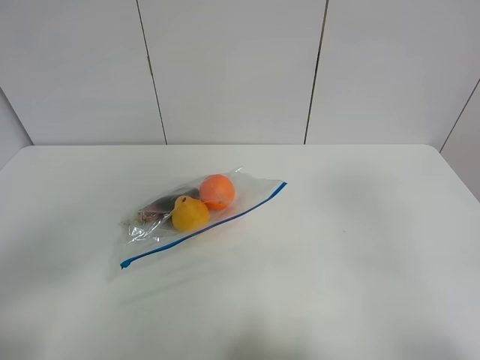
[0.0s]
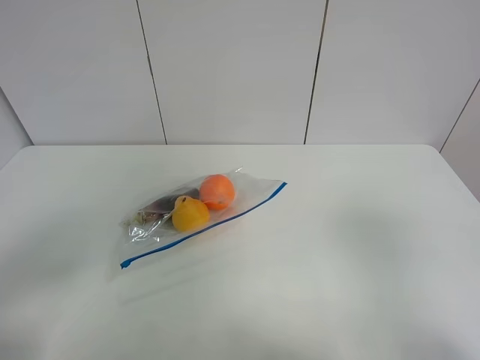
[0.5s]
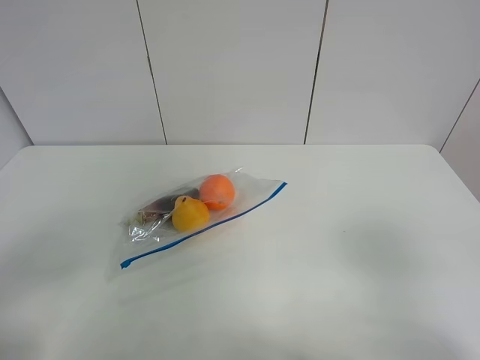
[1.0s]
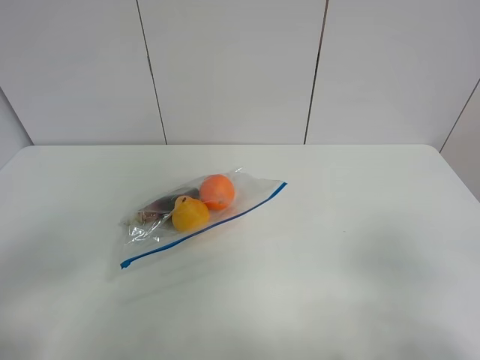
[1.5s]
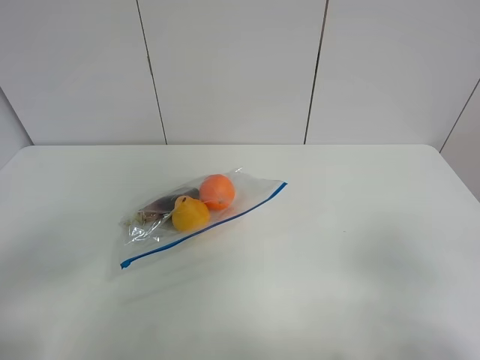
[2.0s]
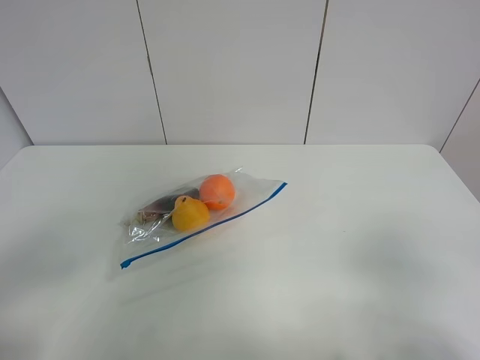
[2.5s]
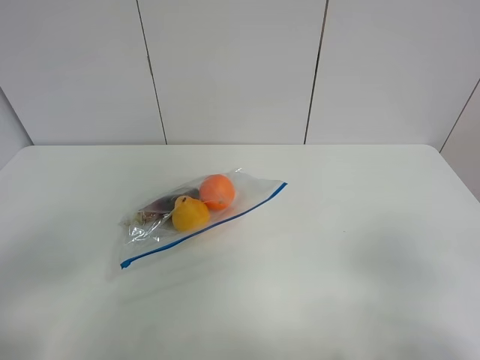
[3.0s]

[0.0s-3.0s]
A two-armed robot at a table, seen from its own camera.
0.0s to 1.5s: The right gripper goes some 15 cm downward.
1.5s to 3.0s: Neither gripper changes place.

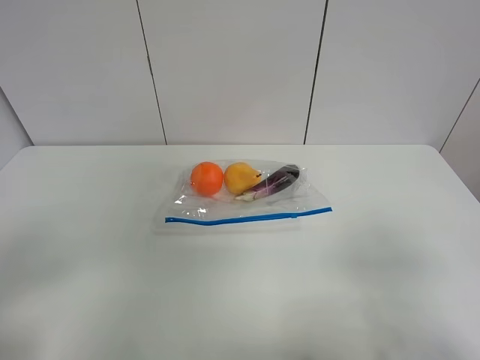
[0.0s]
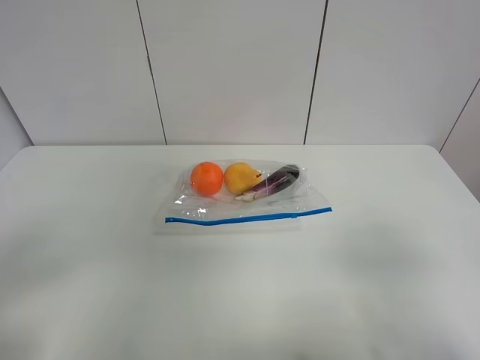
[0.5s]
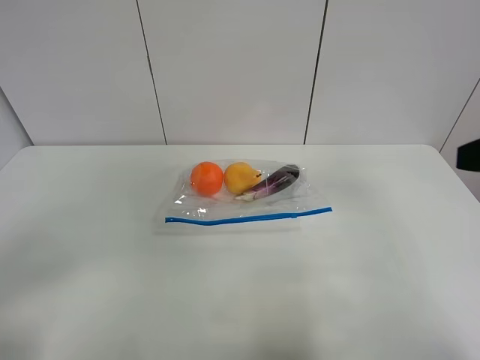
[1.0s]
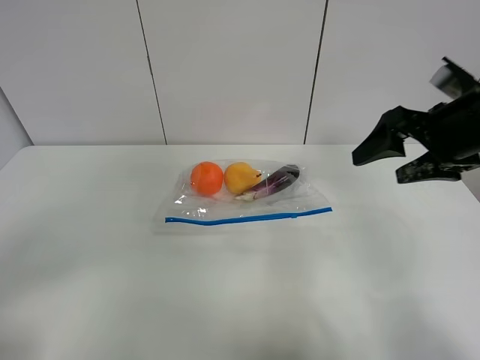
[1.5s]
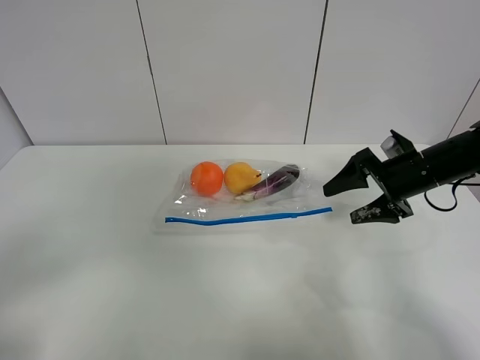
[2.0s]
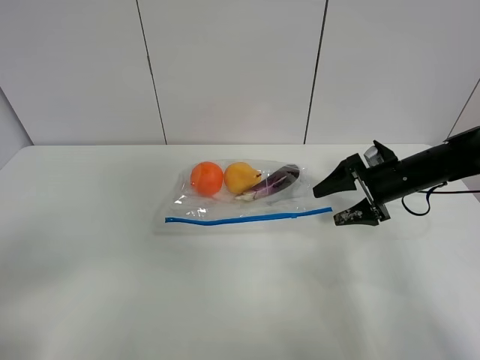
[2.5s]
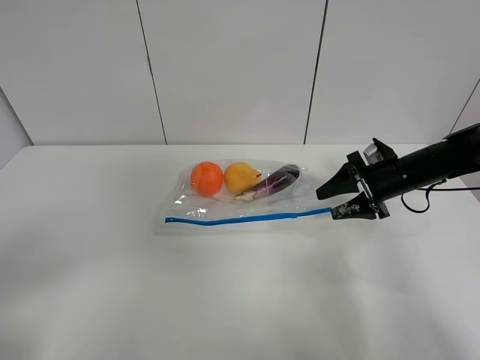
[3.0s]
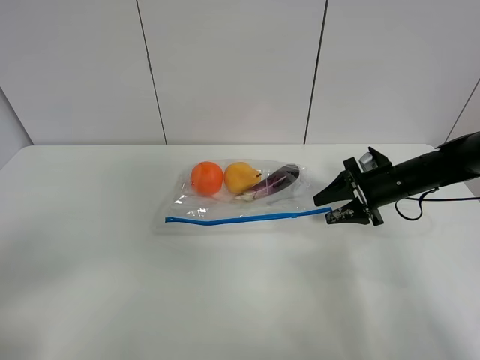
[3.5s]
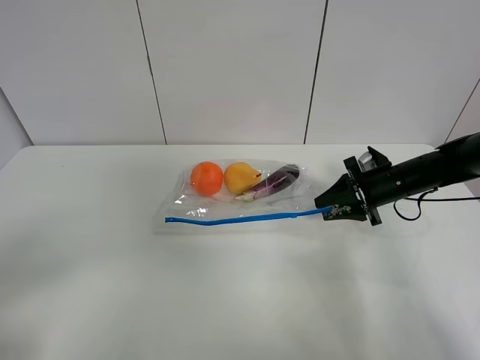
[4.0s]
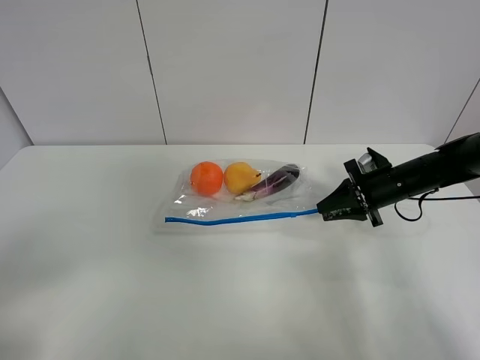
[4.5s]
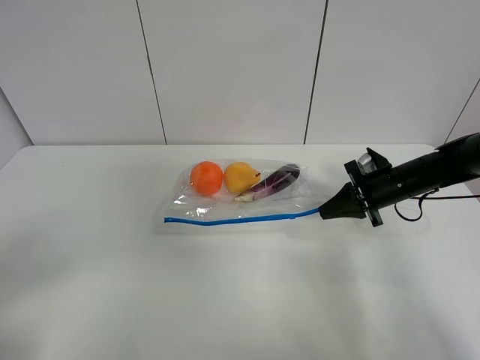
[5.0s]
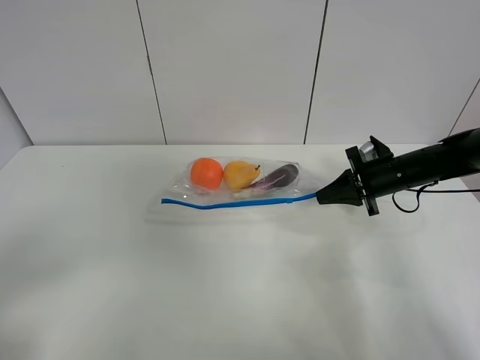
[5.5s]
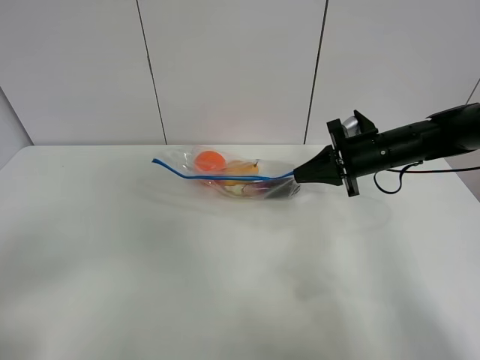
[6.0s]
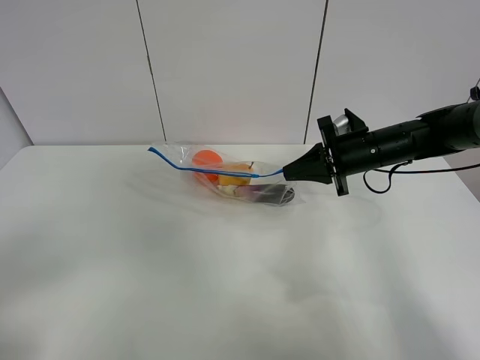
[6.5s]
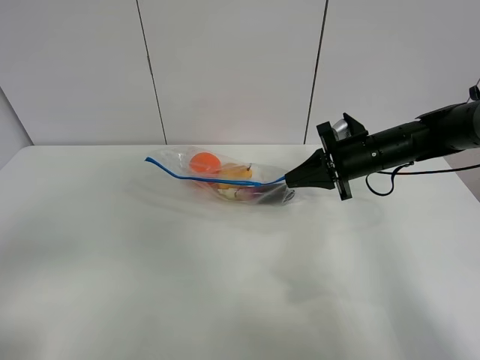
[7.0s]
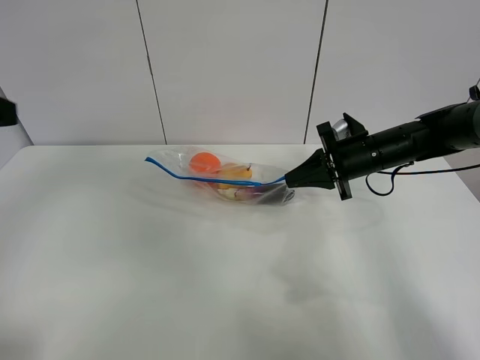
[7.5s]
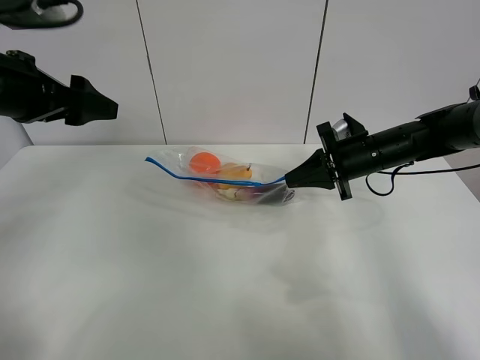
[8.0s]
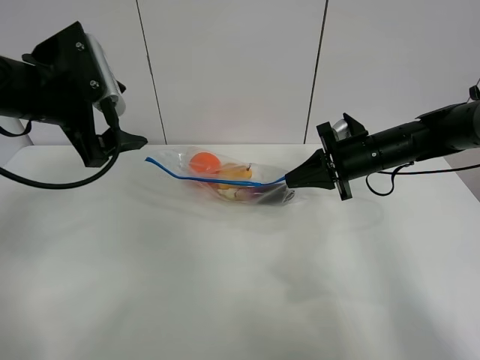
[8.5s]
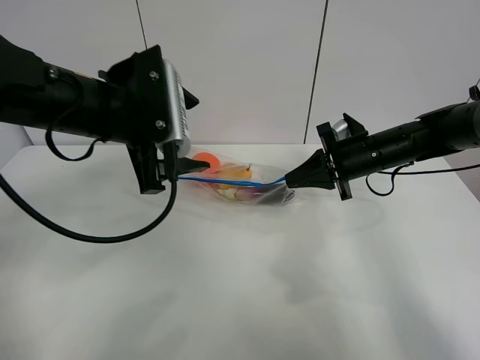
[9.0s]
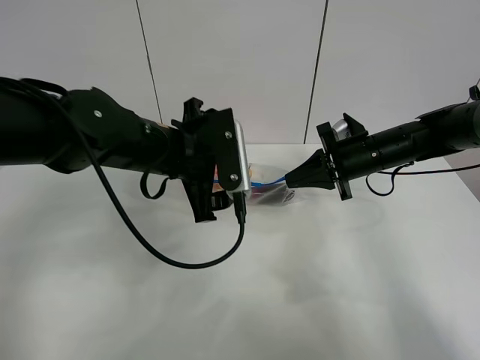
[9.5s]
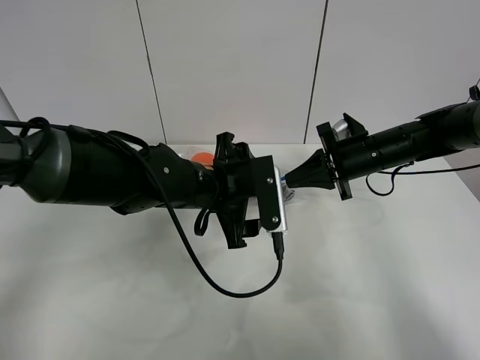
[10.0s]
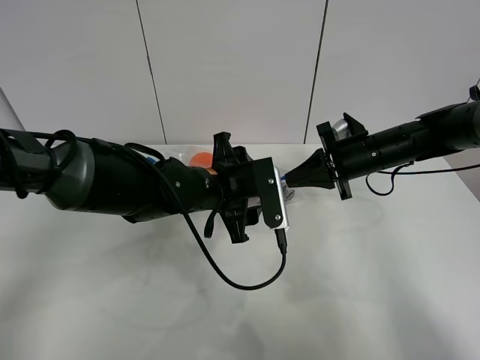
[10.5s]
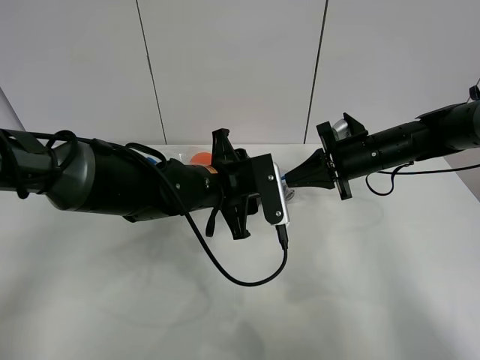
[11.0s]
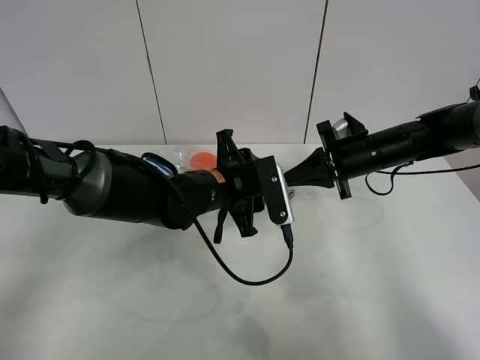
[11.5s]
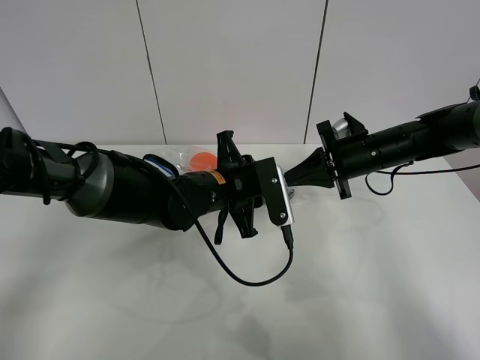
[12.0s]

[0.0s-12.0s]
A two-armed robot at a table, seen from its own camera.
Step, 0.0s to 4.5s: Grasp the fruit bag with right gripper.
Step, 5.0s to 6.5s: Lift the fruit bag with your right gripper.
0.0s to 2.0s: The right gripper moves forward, some 35 cm.
2.0s to 4.0s: The right gripper is displaced downward by roughly 5 cm, and closes its fingers.
4.0s to 6.0s: The right gripper goes some 10 cm upward and to the left, and closes up.
6.0s to 8.0s: The left gripper moves forward, about 30 cm.
8.0s to 10.0s: The left gripper shifts roughly 25 cm to the right and downward.
10.0s to 12.0s: The left gripper closes its fingers.

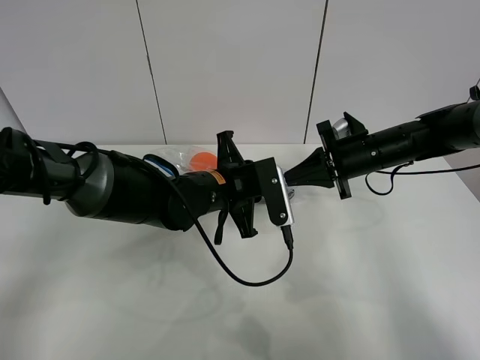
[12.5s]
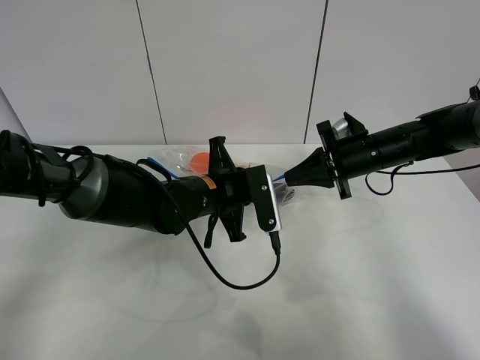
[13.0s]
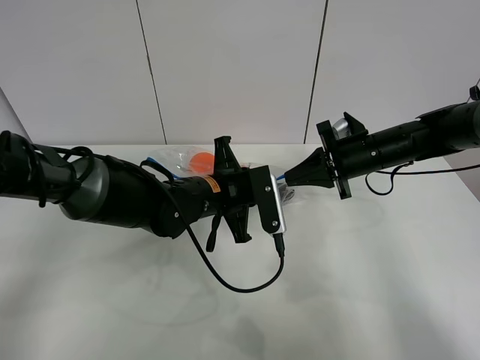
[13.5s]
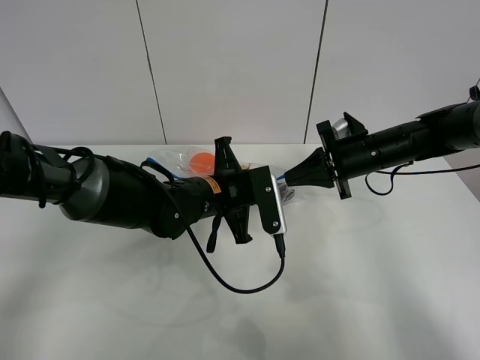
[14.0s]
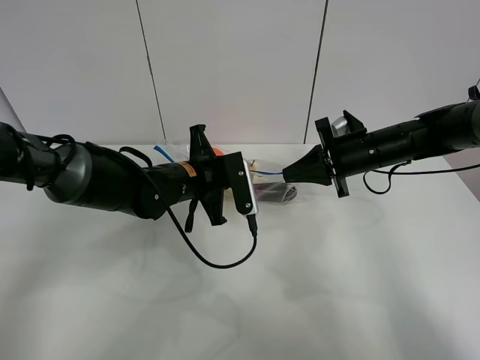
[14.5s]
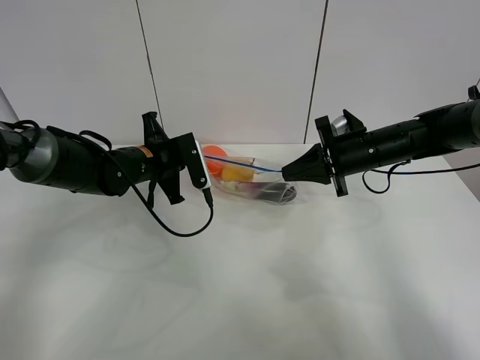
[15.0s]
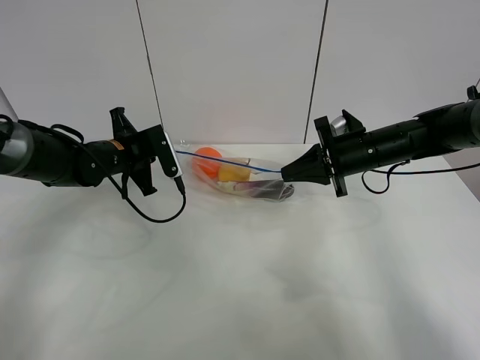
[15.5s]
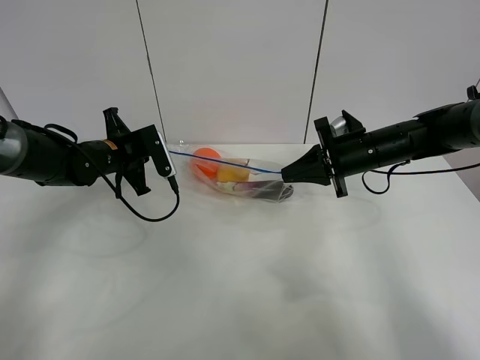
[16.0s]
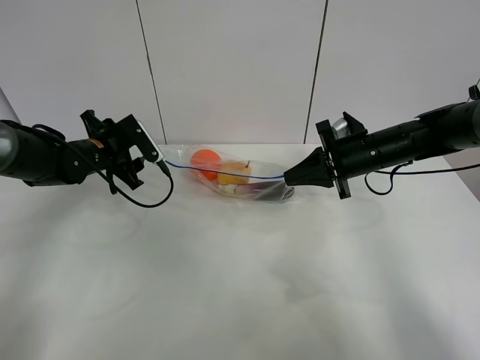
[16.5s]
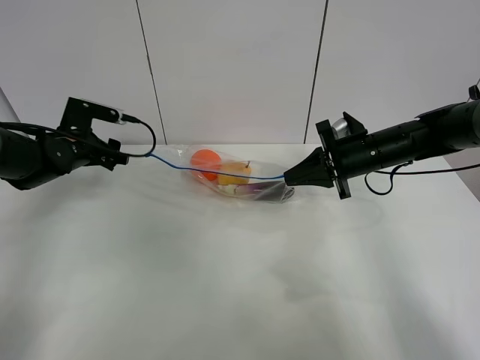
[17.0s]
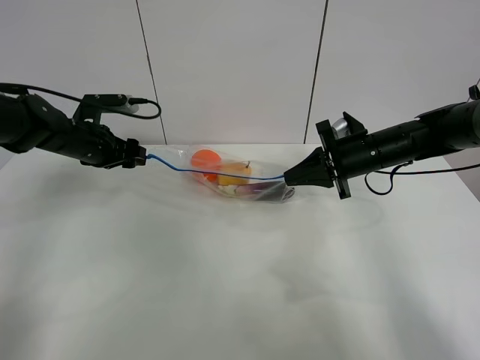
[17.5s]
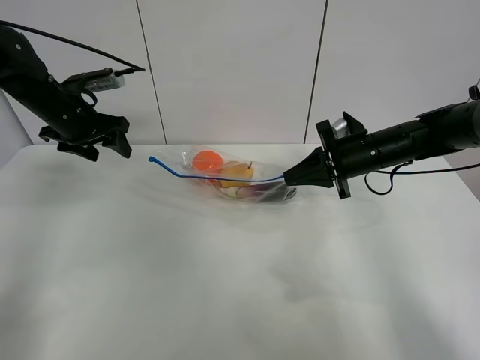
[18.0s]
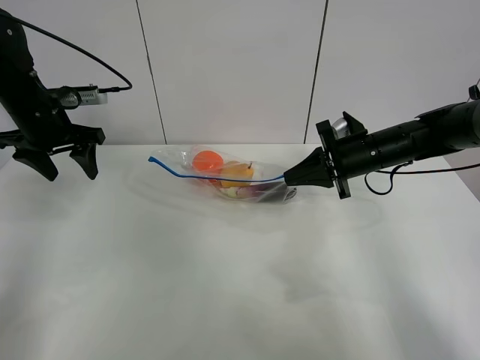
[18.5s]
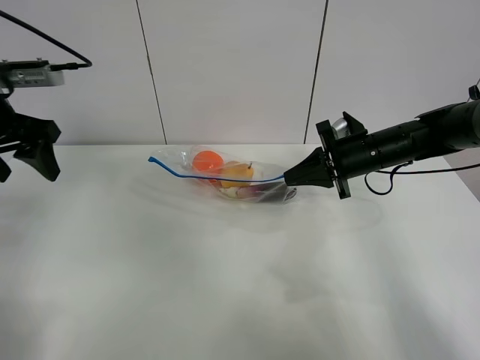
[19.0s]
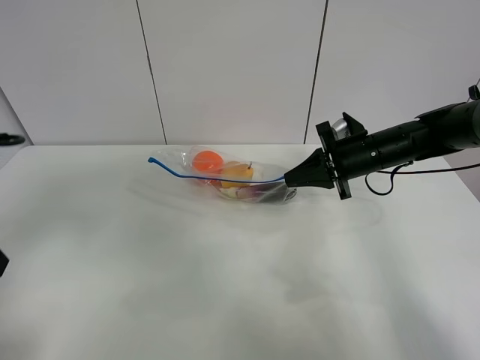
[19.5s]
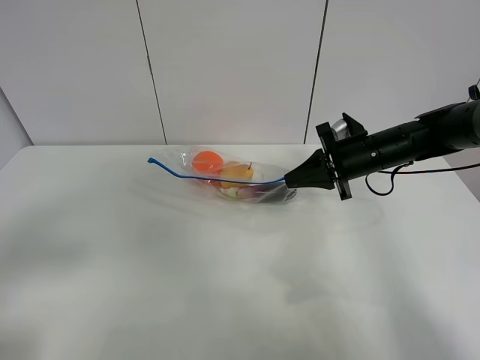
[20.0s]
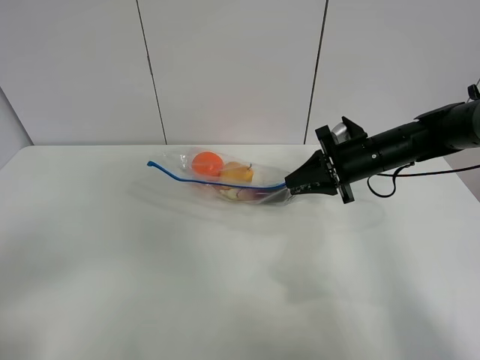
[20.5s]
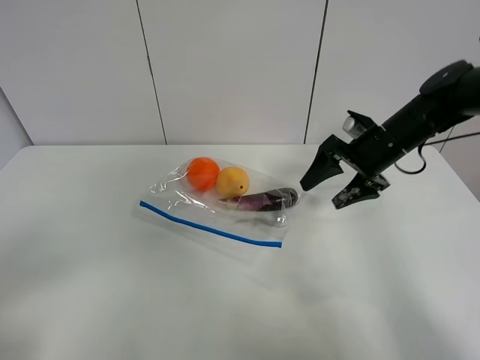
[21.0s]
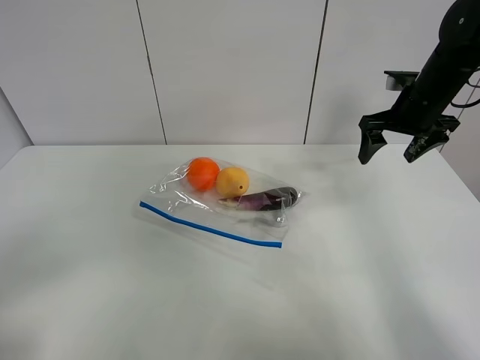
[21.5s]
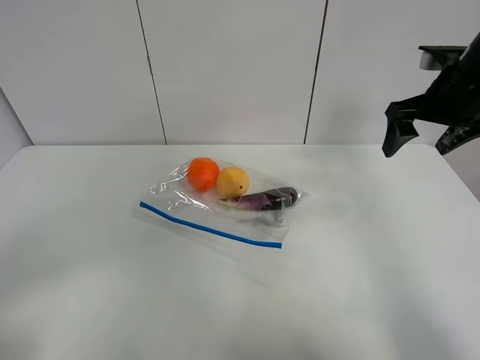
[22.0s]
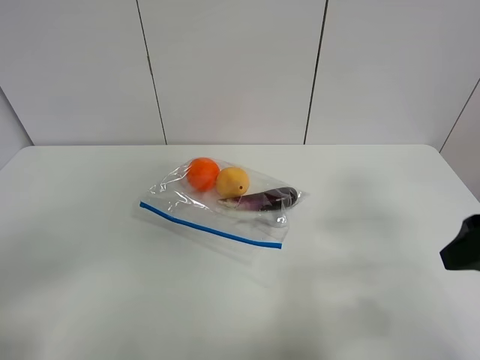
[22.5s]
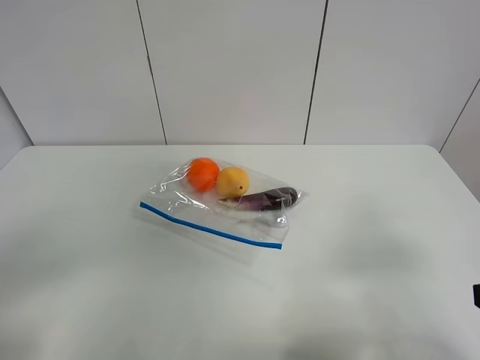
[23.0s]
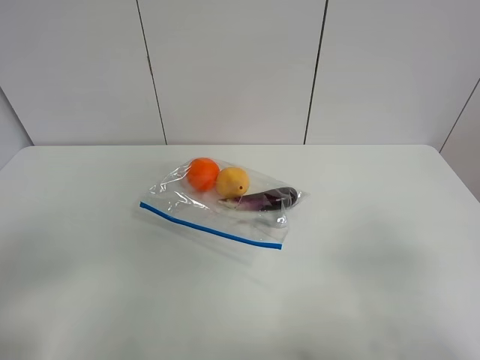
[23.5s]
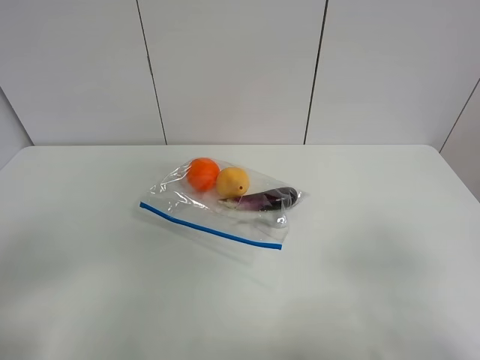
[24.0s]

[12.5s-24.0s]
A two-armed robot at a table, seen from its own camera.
Step, 12.5s to 16.0s: Pull the fruit bag with left gripper.
12.5s to 14.5s: The left gripper is displaced to the left by approximately 5 cm.
14.5s to 16.5s: The left gripper shifts approximately 15 cm to the left, and opens its fingers.
16.5s to 18.5s: The left gripper is displaced upward by approximately 10 cm.
18.5s to 20.0s: The left gripper goes approximately 35 cm backward.
20.0s to 22.0s: The right gripper heads upward and to the right, covering roughly 15 cm, and opens its fingers. Meanwhile the left gripper heads backward, covering approximately 5 cm.
22.0s to 24.0s: The right gripper heads backward, covering roughly 35 cm.
